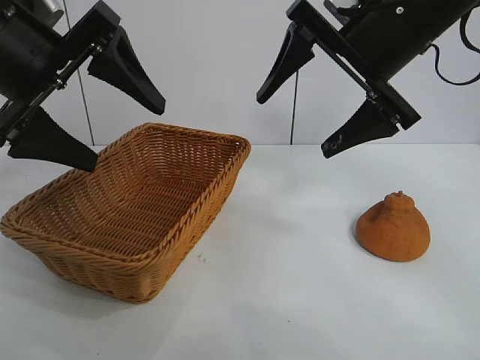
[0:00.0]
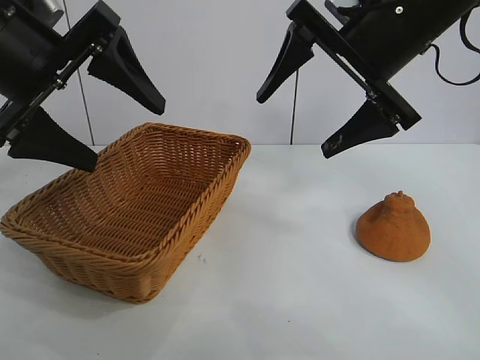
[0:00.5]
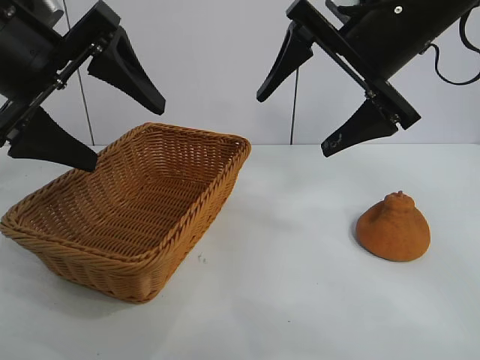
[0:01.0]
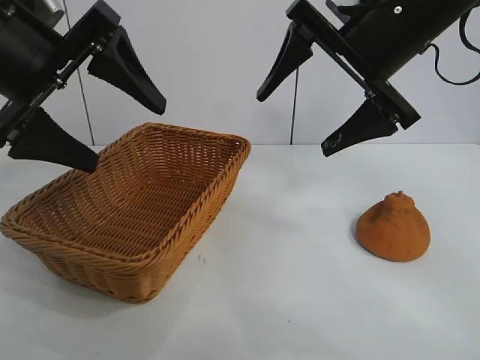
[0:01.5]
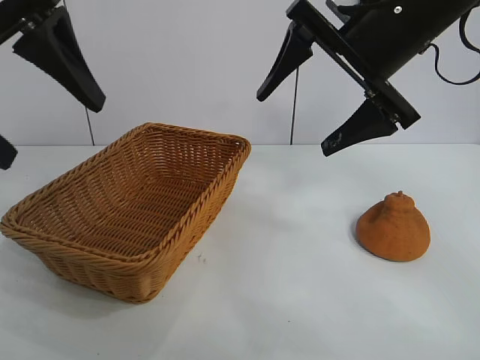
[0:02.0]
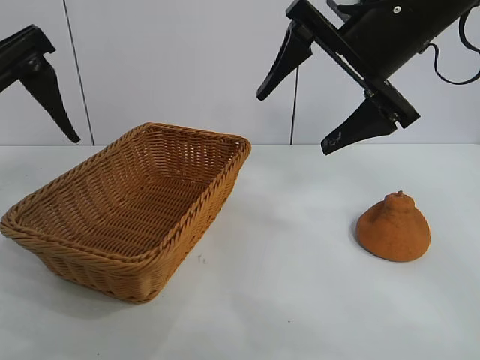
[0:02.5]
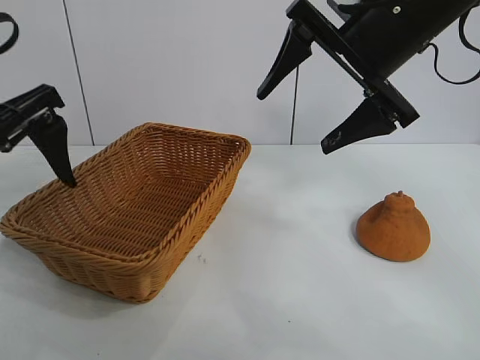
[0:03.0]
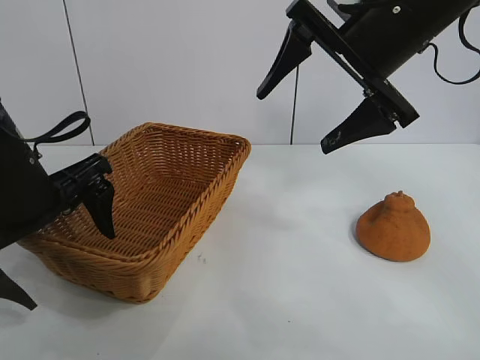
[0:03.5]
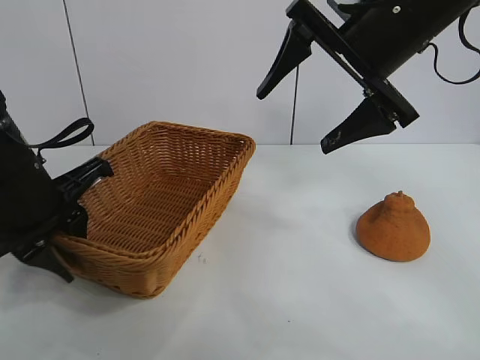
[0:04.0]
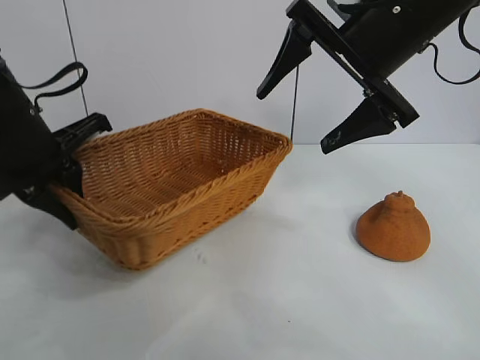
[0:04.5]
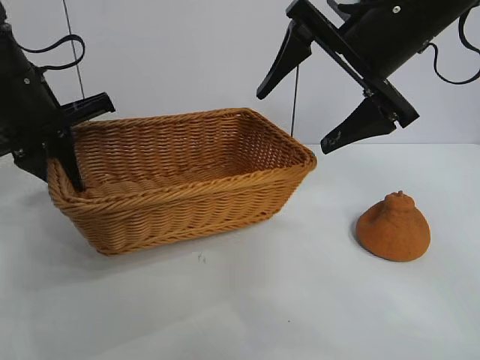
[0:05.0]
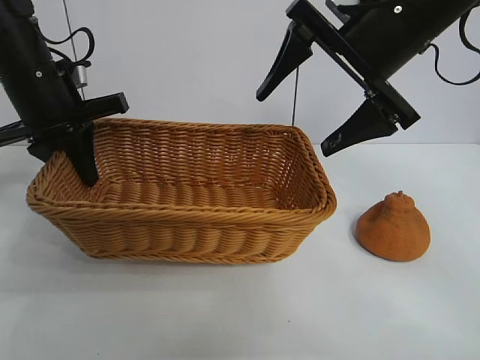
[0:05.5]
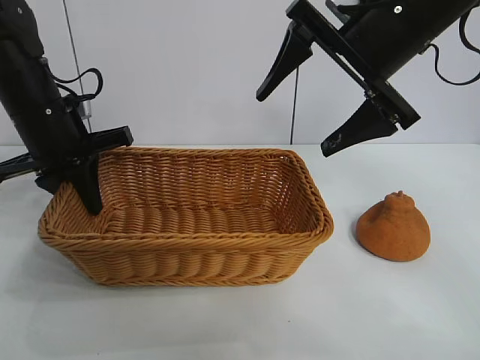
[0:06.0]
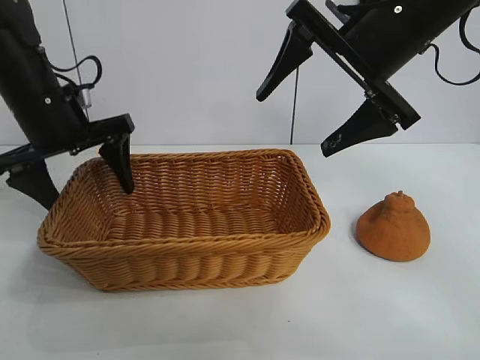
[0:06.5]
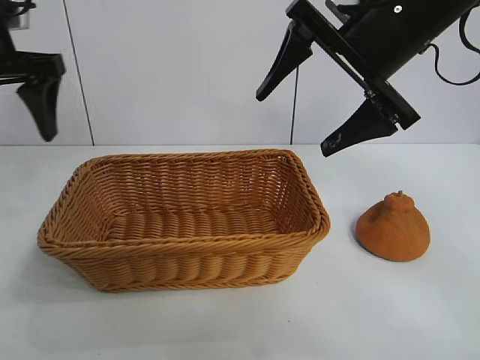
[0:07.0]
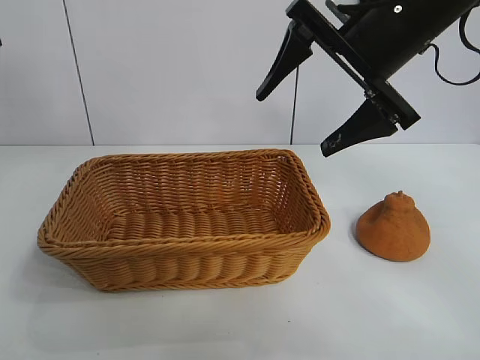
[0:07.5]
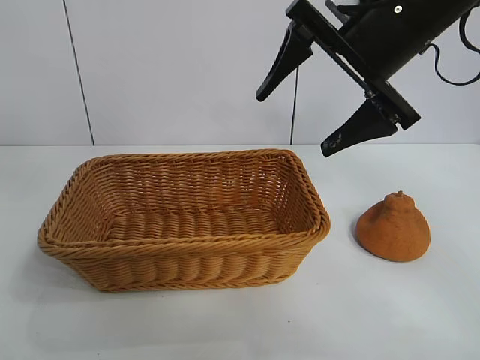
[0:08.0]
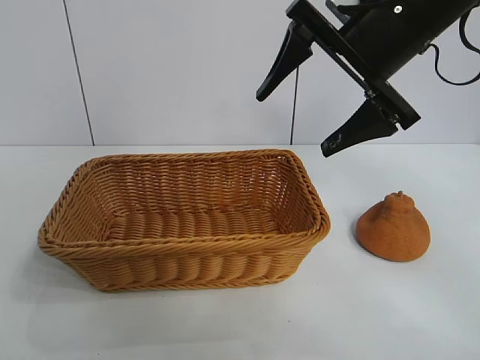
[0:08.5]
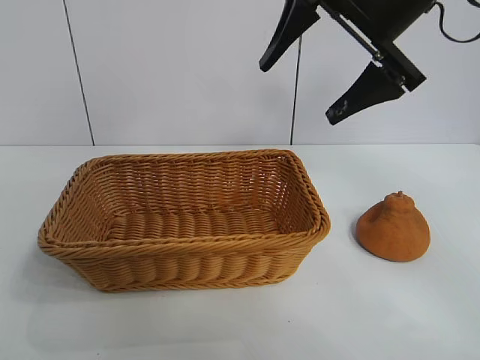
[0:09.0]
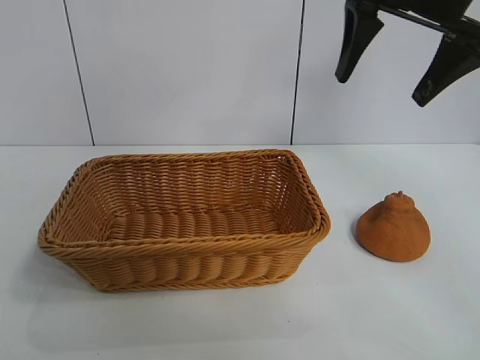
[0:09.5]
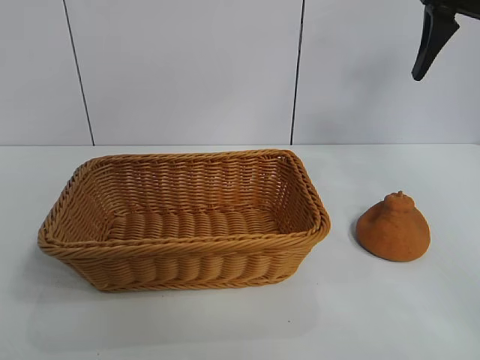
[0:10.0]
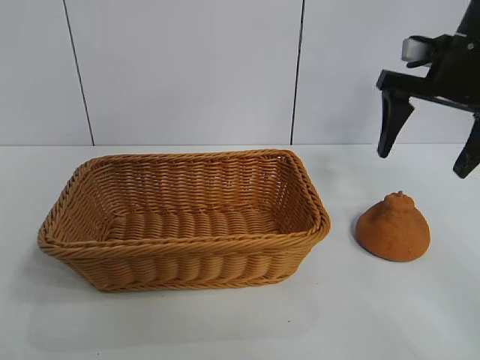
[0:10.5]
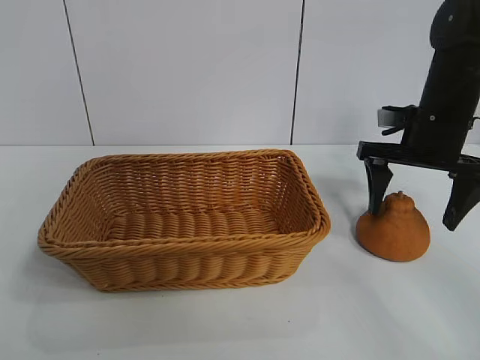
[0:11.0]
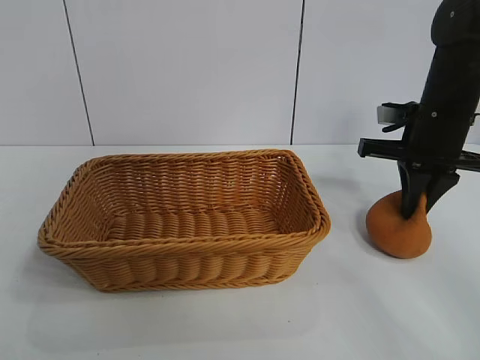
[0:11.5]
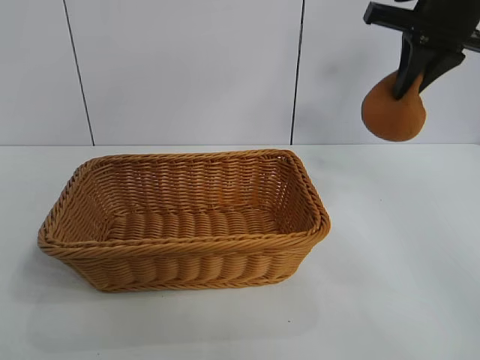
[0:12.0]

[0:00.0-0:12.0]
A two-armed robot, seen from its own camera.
Task of the whole recording: pick up the orange and put it into the basket.
Step, 0:00.0 to 0:04.0: Grasp the basket with left gripper.
Step, 0:04.5 to 0:06.0: Place the basket in the center of view with left gripper.
Step, 0:06.5 to 0:11.0: Grasp the orange with right gripper.

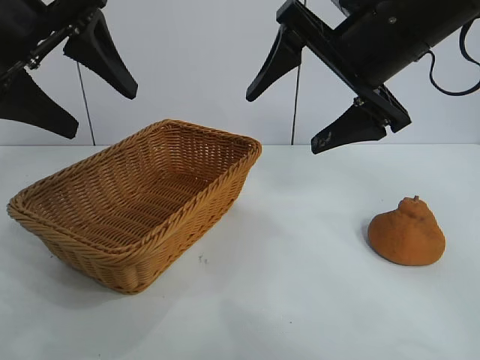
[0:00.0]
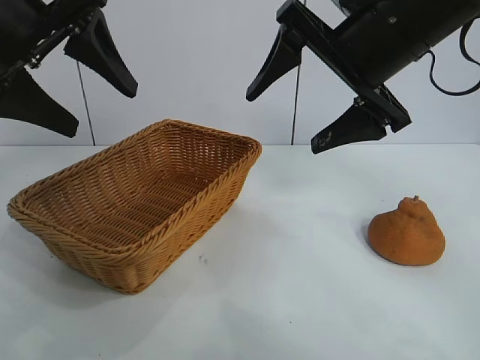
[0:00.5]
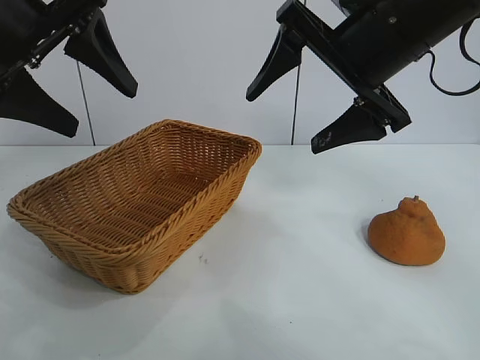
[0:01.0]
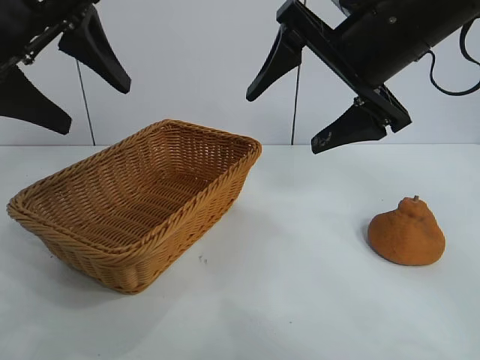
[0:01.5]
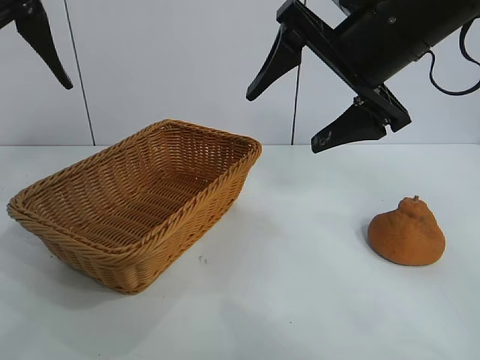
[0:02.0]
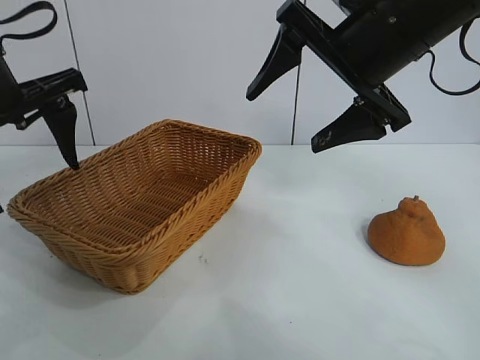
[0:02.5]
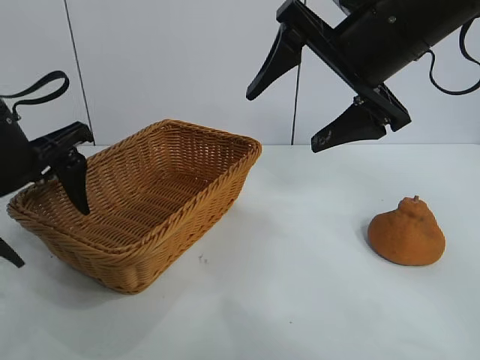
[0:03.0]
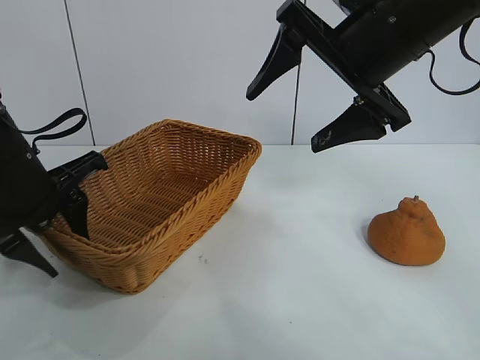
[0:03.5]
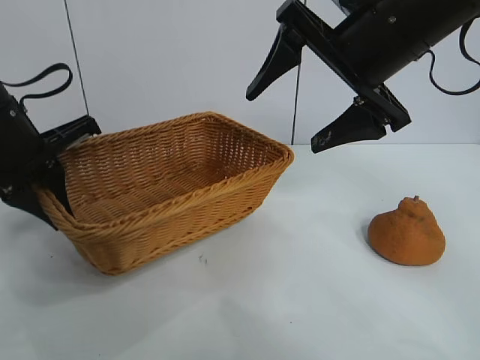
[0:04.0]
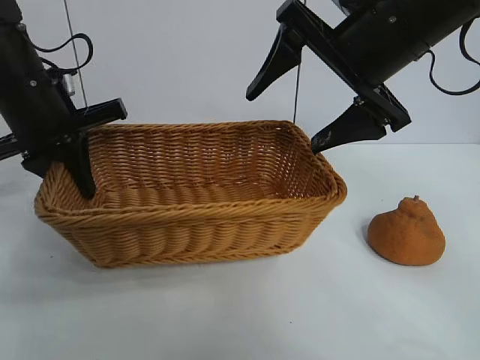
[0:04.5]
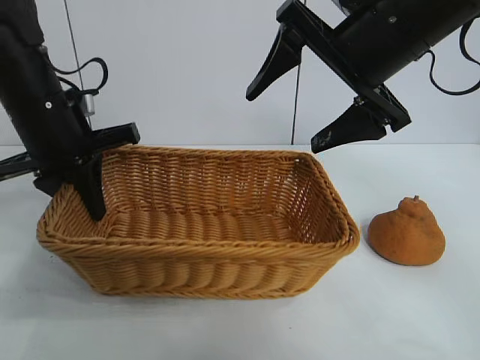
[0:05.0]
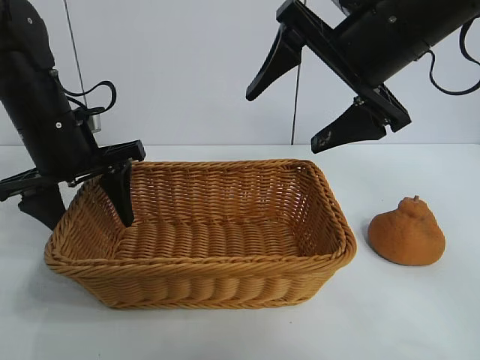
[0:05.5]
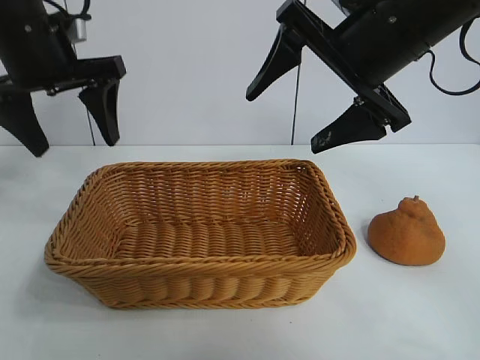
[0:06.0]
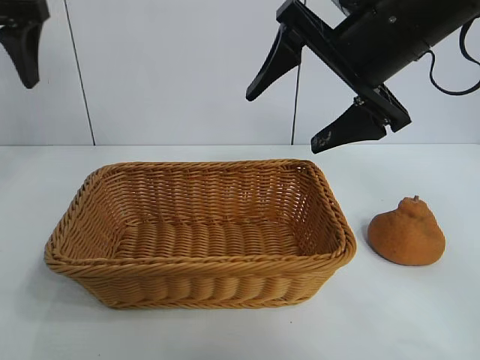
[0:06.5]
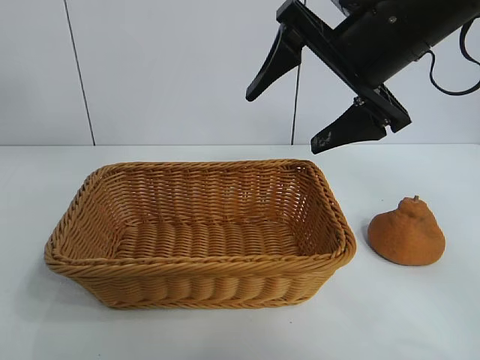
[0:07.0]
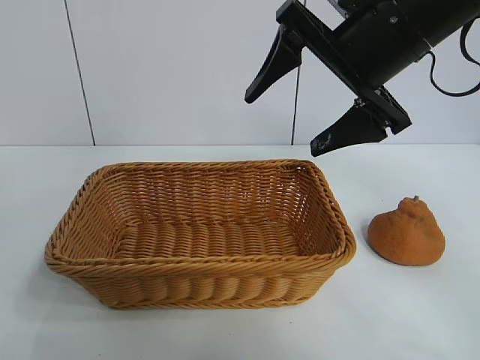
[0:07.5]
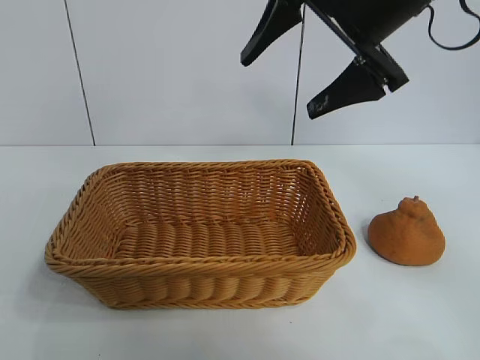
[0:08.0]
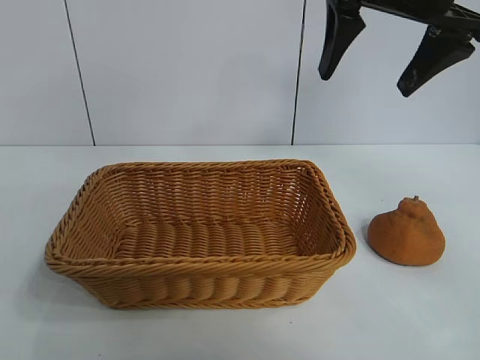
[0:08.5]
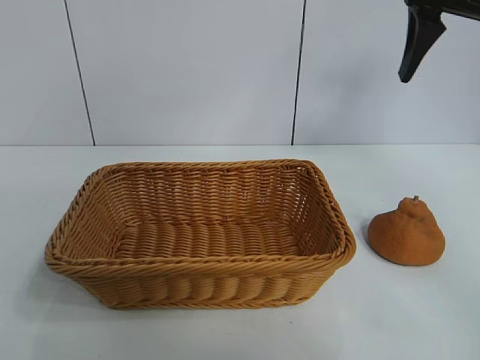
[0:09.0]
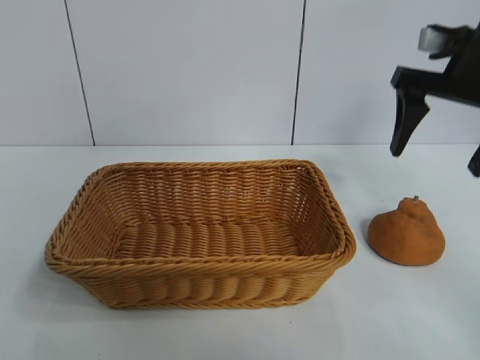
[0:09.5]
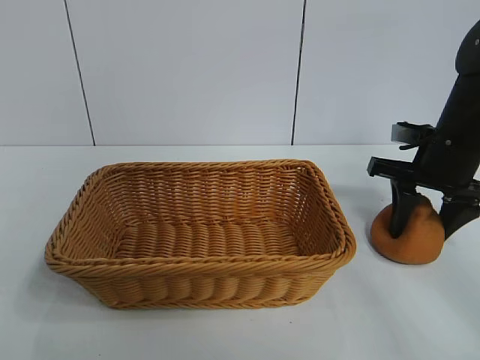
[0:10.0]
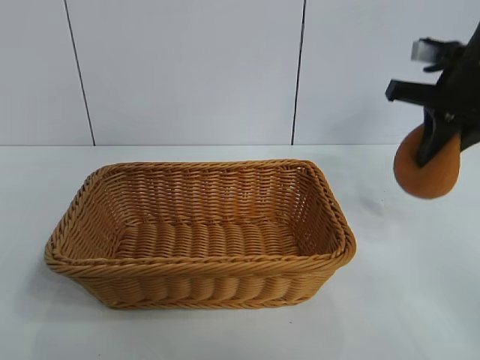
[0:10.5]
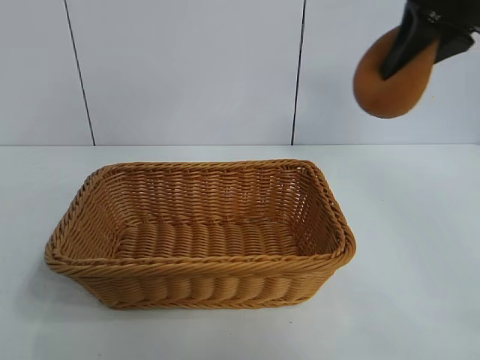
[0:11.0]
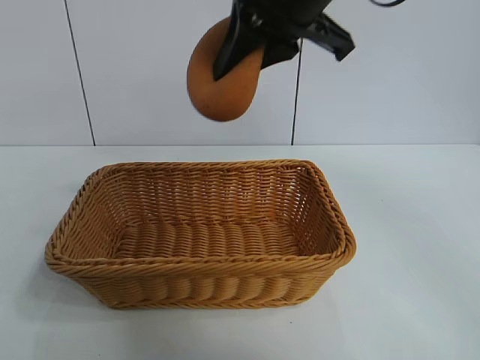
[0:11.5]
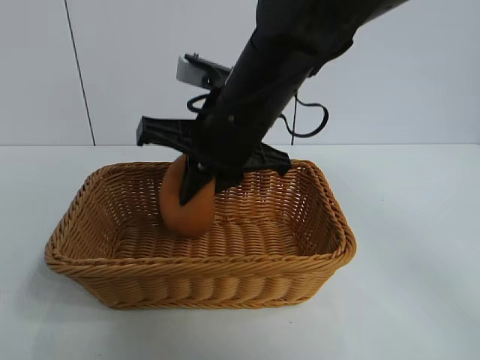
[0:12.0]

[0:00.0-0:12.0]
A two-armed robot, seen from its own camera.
Task of the whole recording: pick up the orange and put it into the basket.
Step, 0:00.0 to 0:03.5: Grasp the basket with left gripper.
Step, 0:04.0 to 0:05.5: Place the basket in the center of view with left gripper.
Step, 0:06.0 to 0:10.0: Grasp the orange with right gripper.
